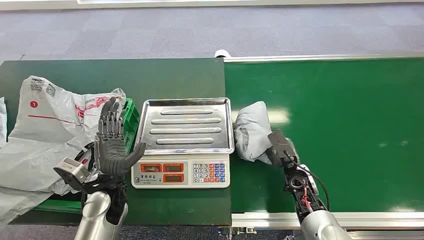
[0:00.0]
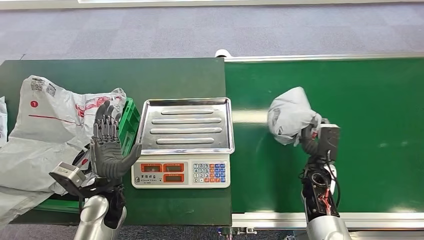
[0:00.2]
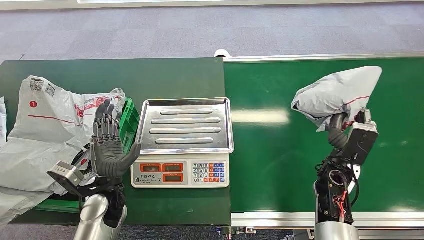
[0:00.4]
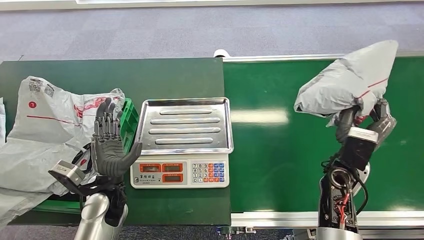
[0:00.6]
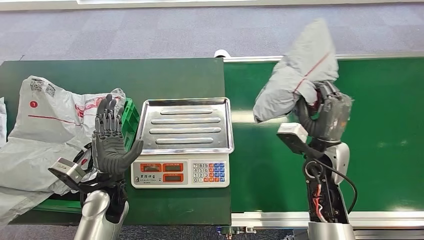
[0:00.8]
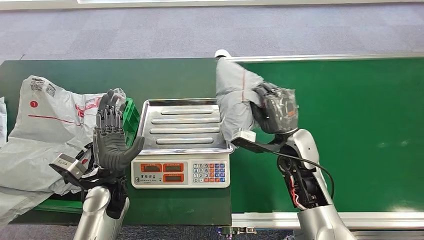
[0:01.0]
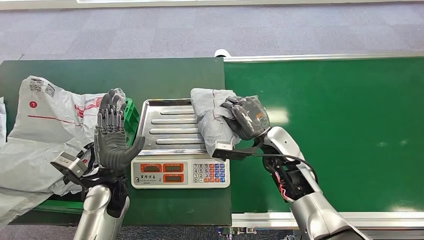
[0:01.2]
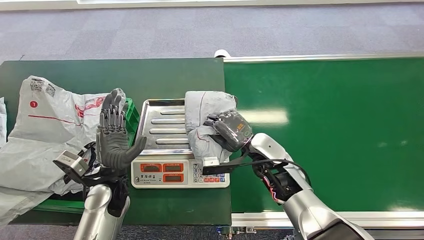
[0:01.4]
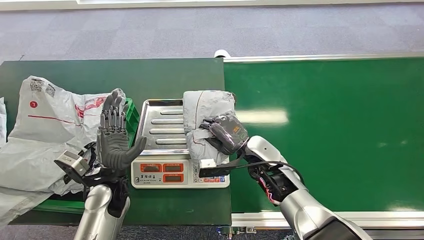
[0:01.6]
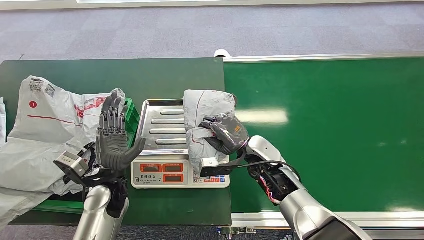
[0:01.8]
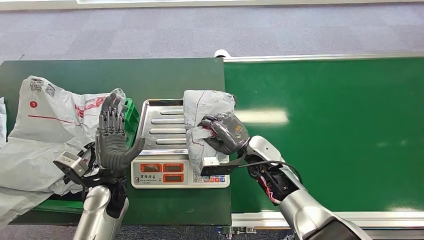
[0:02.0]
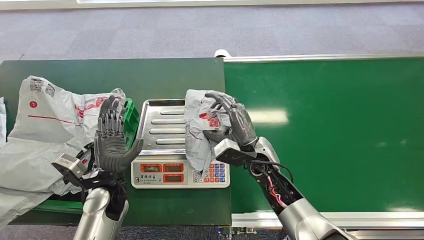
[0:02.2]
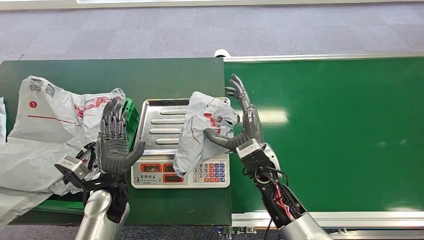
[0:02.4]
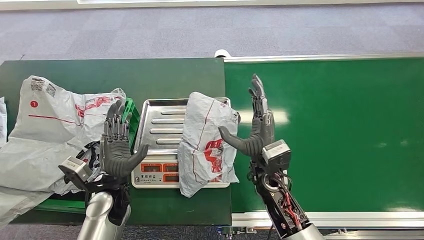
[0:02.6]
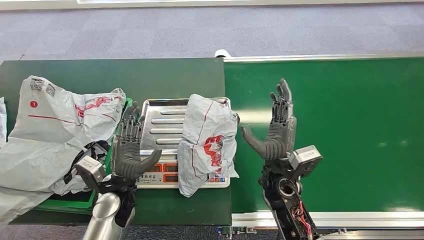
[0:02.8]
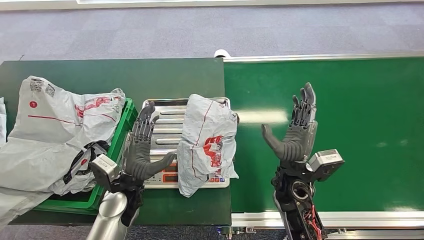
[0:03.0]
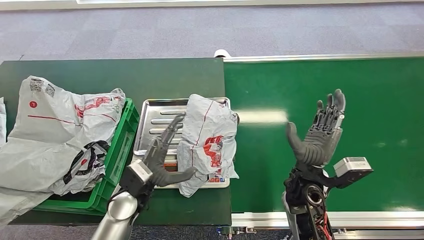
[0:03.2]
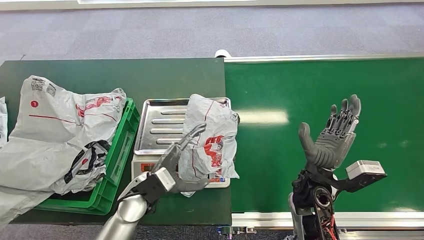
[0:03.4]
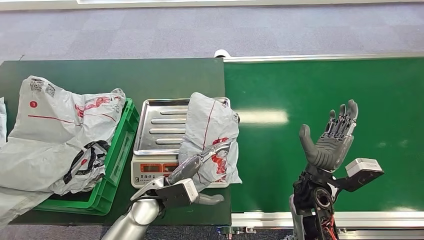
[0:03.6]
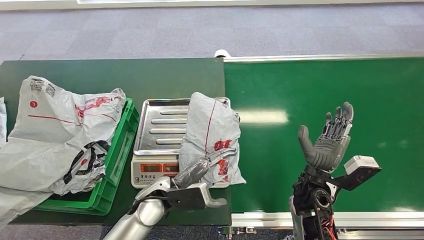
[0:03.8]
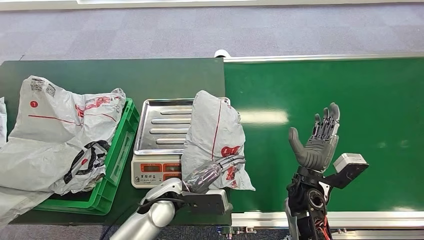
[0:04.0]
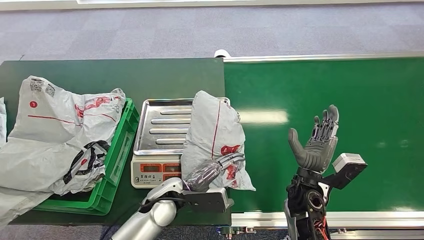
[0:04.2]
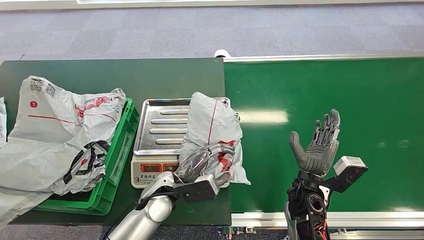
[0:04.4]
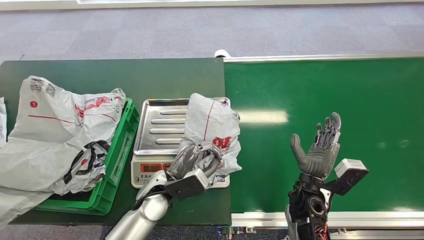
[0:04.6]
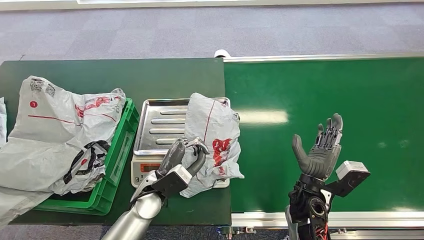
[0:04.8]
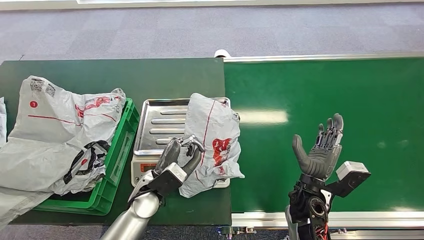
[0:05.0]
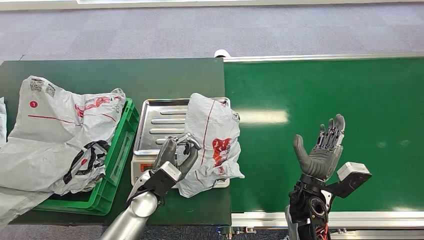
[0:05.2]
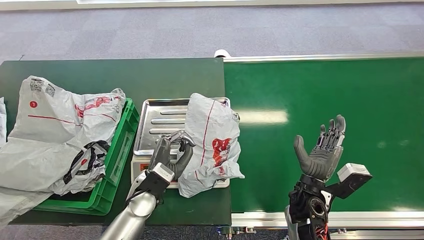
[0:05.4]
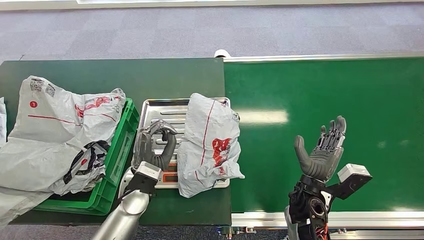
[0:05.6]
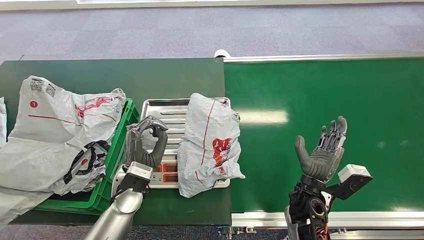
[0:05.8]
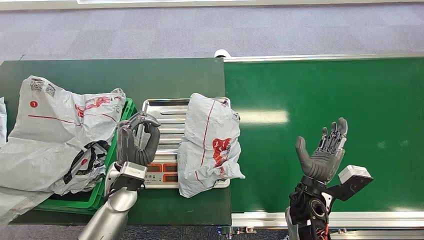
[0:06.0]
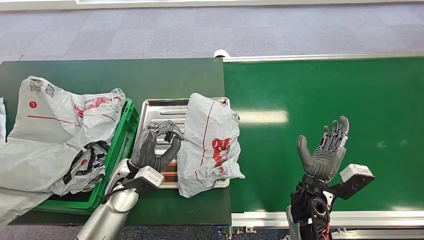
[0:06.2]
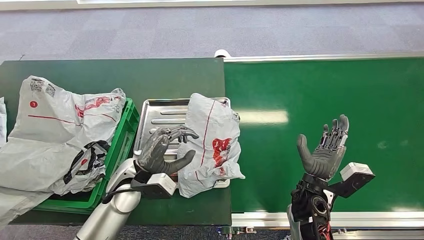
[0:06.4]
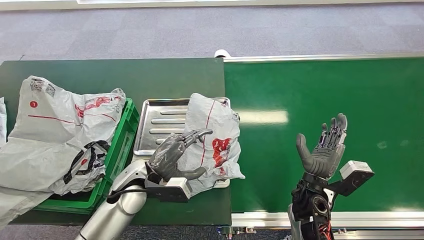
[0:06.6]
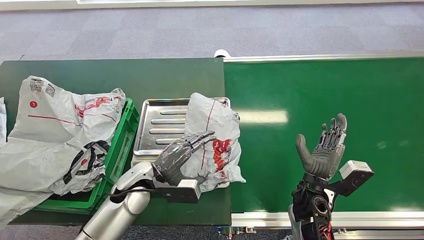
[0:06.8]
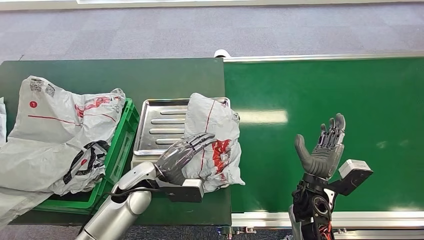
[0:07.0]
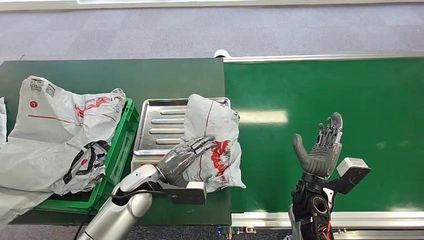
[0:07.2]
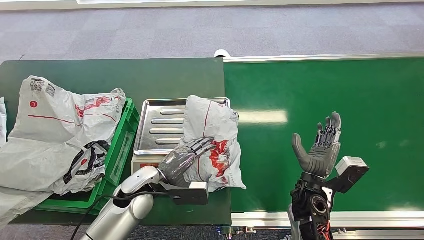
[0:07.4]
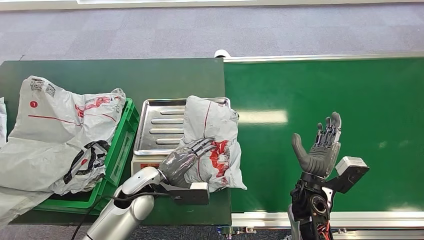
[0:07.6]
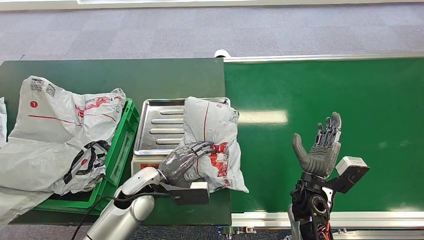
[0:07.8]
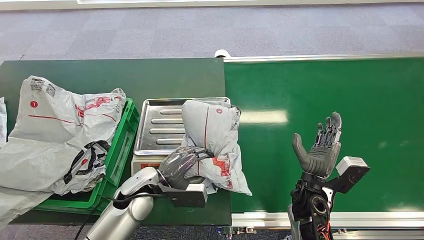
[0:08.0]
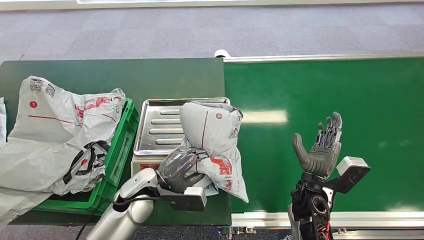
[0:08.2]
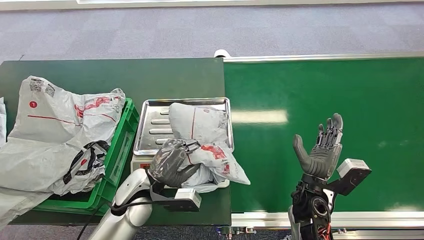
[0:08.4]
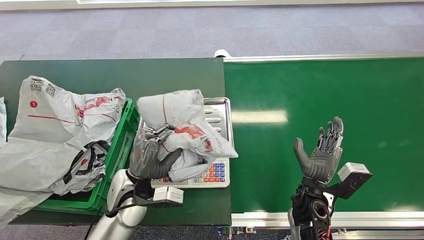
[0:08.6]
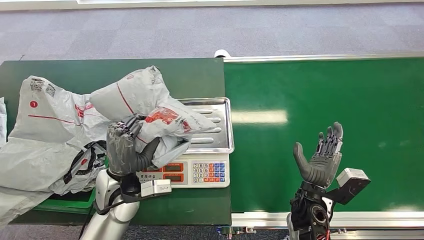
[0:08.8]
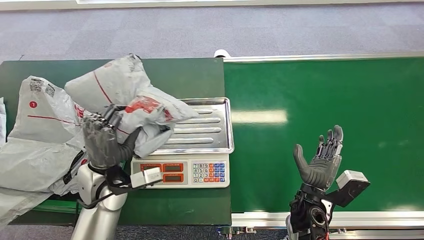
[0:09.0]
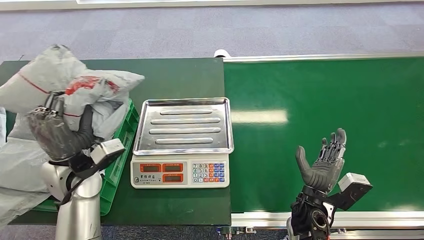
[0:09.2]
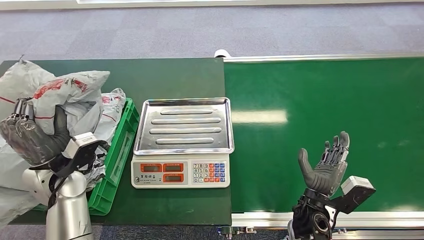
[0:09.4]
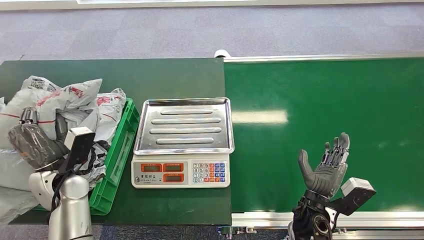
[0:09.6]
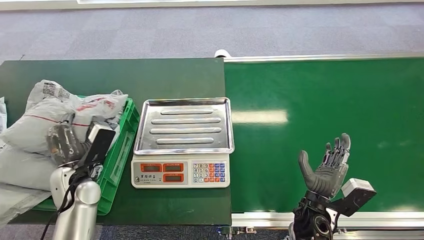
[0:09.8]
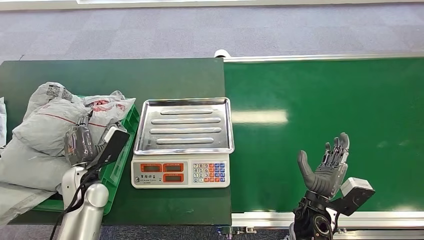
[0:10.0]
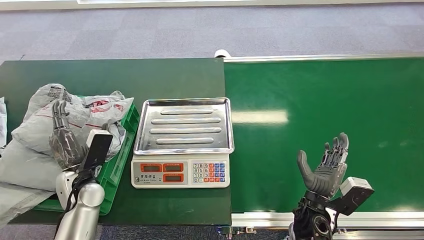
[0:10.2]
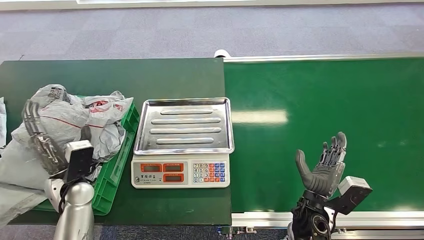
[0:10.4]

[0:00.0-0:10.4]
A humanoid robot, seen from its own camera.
Step, 0:00.0 to 0:00.8: Pick up the package from the conveyor belt.
Step, 0:01.0 to 0:02.6: Place the package onto the inbound machine.
Step, 0:07.0 to 0:08.8: Pick up the package from the inbound machine.
Step, 0:09.0 to 0:10.4: Place the package into the parcel locker.
0:01.4 to 0:03.0: The right hand goes approximately 5 cm backward.
0:03.0 to 0:04.4: The right hand ends up some 5 cm from where it was; the left hand moves to the right, about 10 cm.
0:04.4 to 0:06.0: The left hand heads to the left, covering some 10 cm.
0:09.0 to 0:10.4: The left hand moves to the left and downward, about 10 cm.
